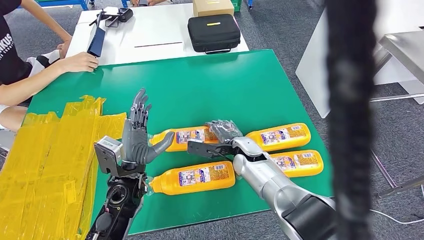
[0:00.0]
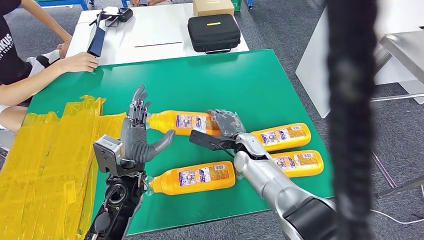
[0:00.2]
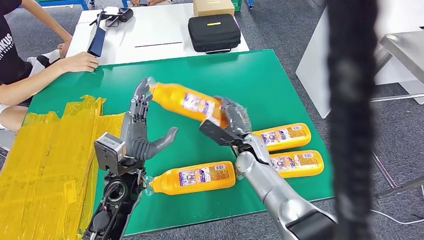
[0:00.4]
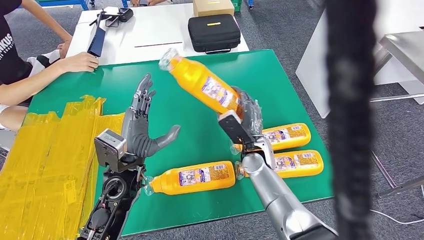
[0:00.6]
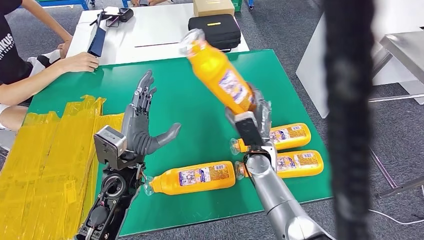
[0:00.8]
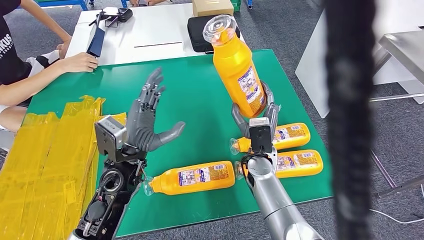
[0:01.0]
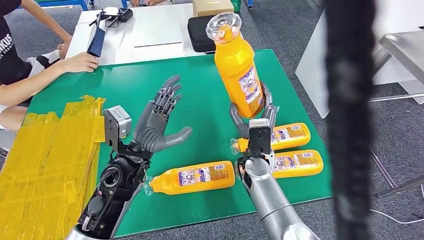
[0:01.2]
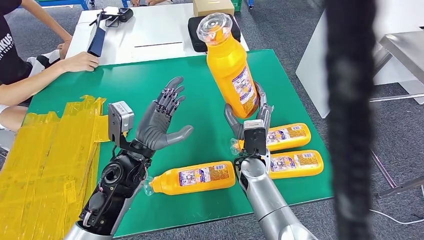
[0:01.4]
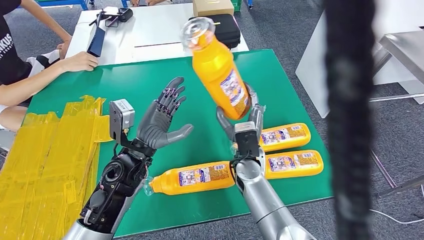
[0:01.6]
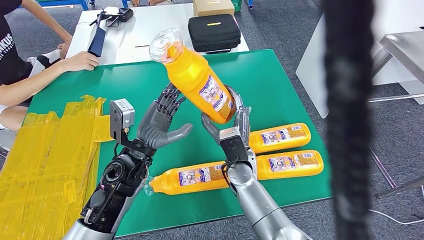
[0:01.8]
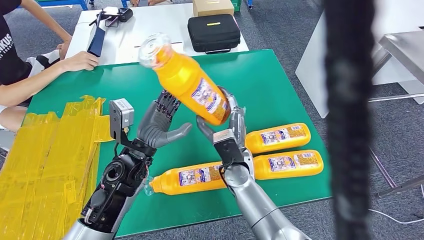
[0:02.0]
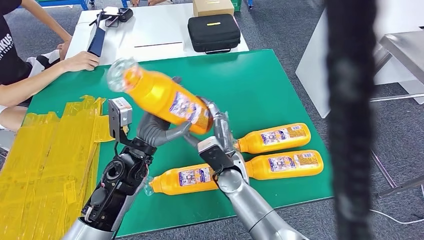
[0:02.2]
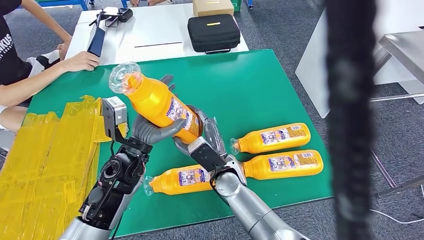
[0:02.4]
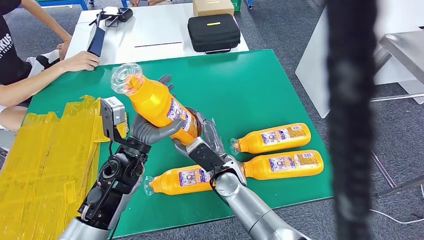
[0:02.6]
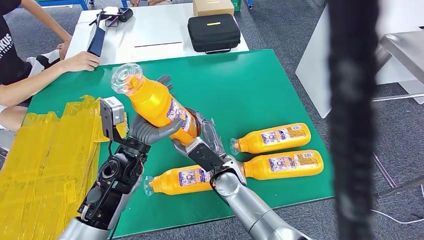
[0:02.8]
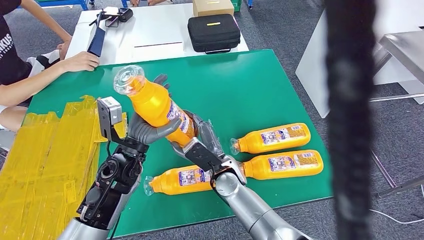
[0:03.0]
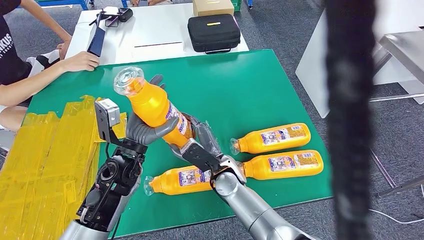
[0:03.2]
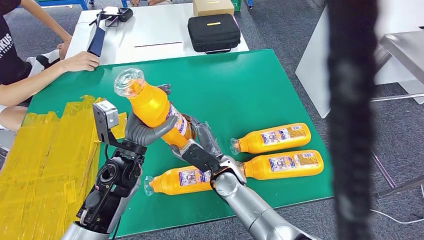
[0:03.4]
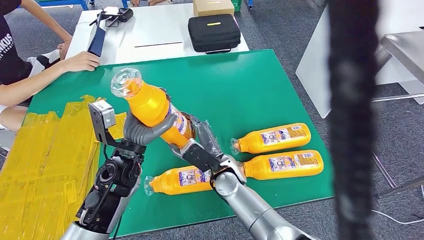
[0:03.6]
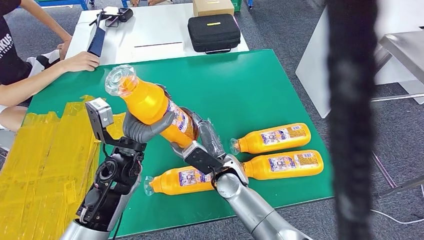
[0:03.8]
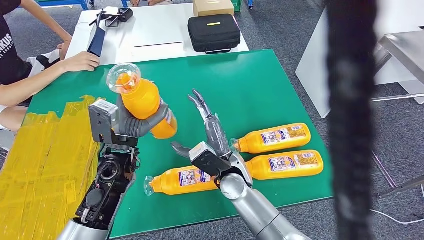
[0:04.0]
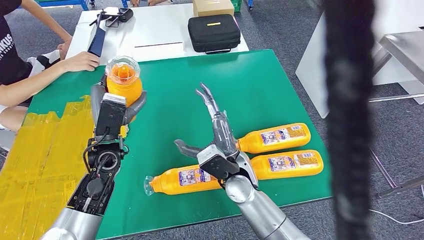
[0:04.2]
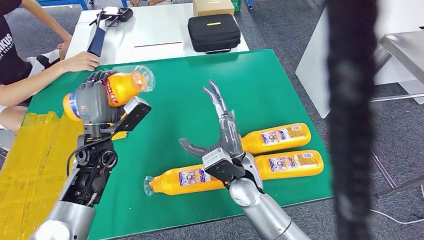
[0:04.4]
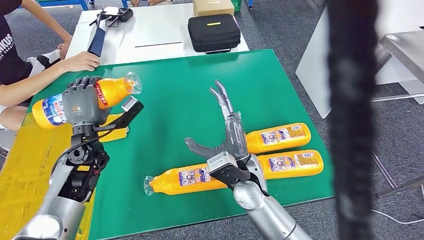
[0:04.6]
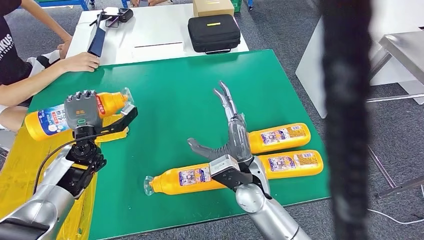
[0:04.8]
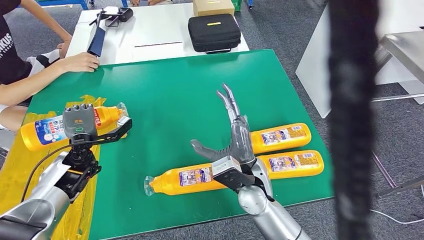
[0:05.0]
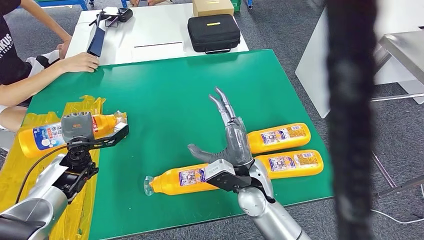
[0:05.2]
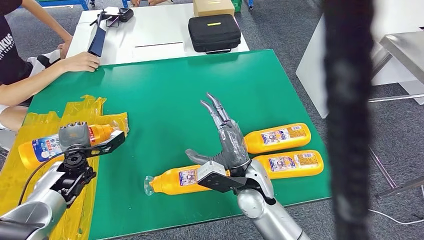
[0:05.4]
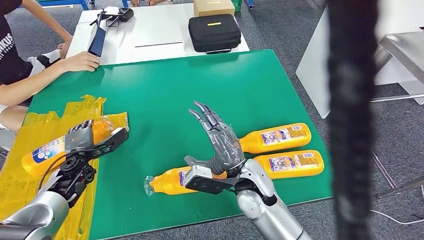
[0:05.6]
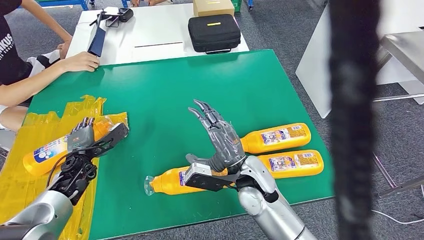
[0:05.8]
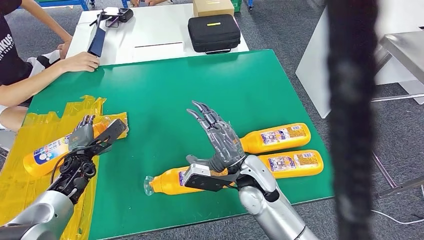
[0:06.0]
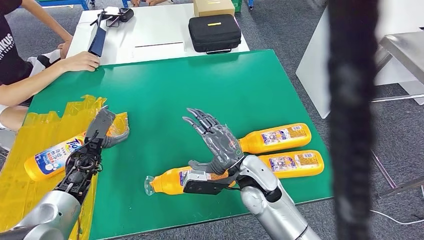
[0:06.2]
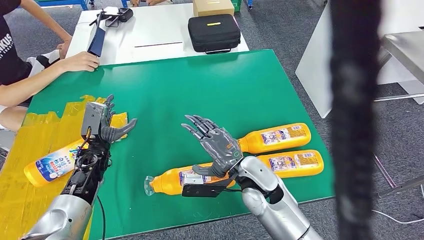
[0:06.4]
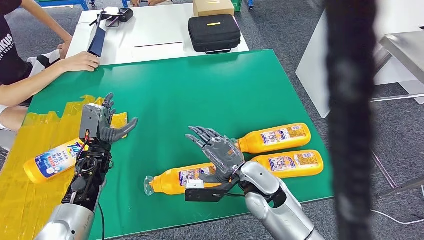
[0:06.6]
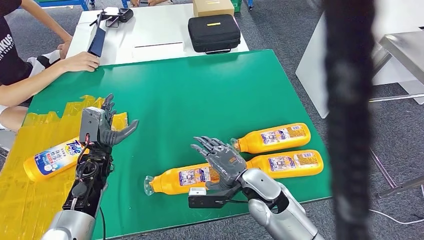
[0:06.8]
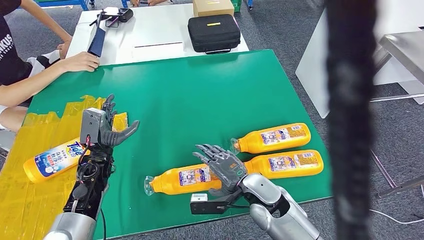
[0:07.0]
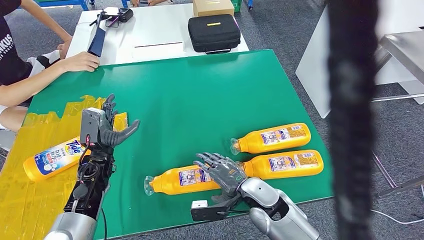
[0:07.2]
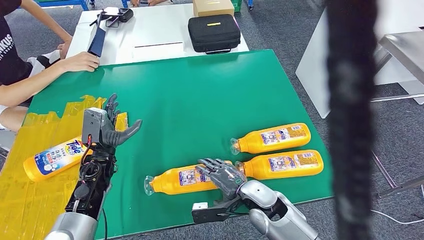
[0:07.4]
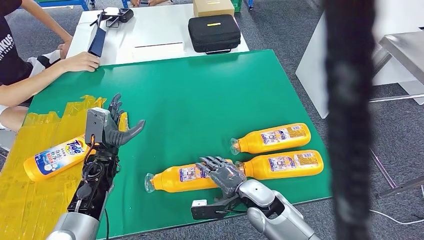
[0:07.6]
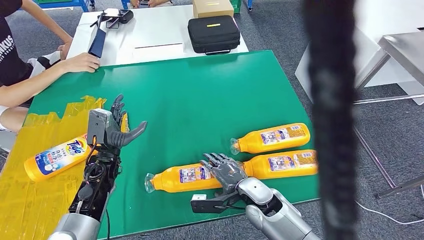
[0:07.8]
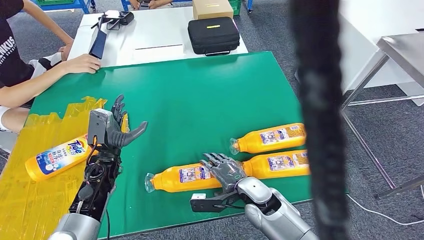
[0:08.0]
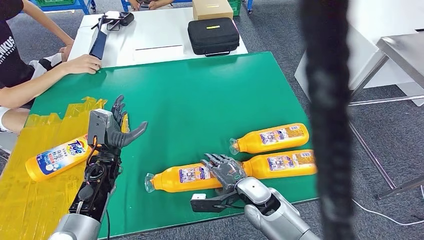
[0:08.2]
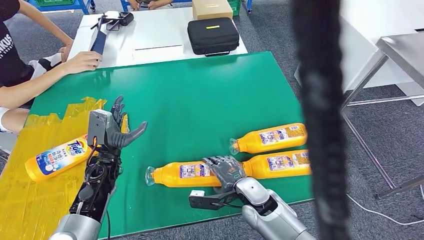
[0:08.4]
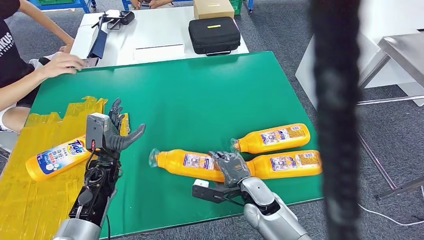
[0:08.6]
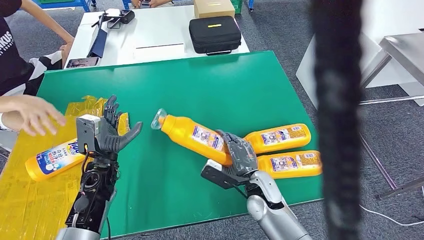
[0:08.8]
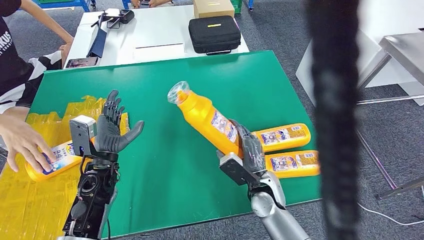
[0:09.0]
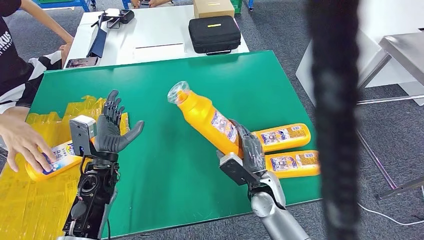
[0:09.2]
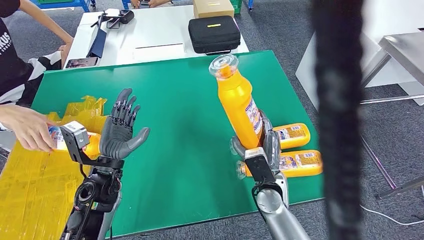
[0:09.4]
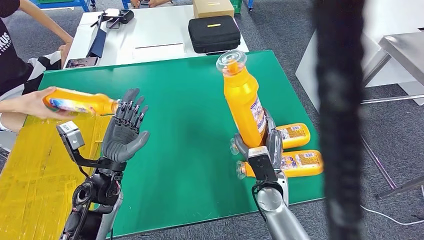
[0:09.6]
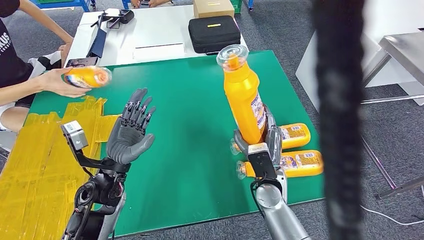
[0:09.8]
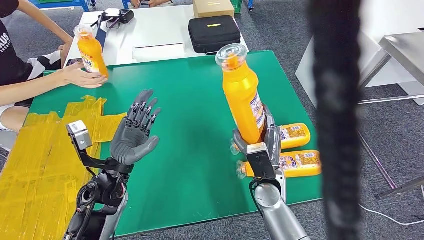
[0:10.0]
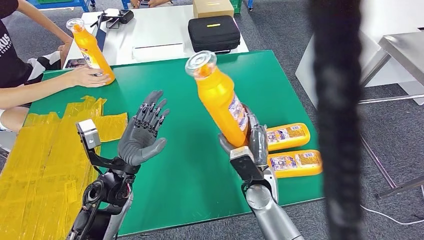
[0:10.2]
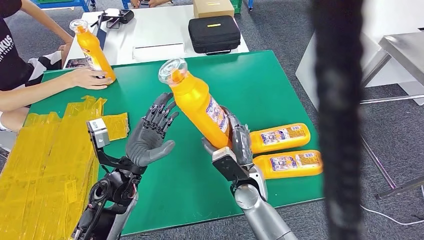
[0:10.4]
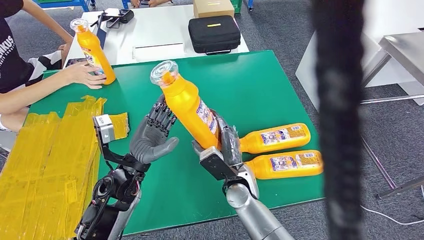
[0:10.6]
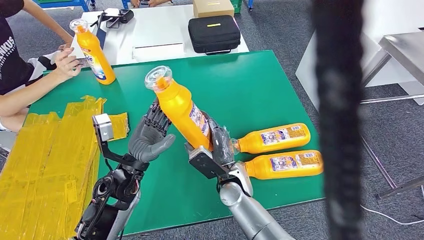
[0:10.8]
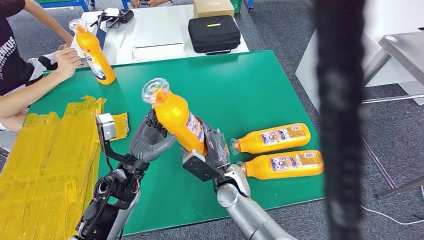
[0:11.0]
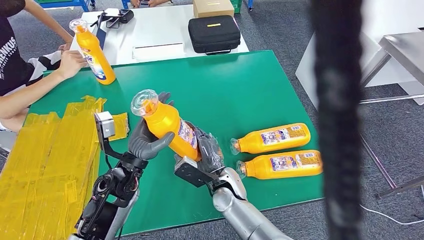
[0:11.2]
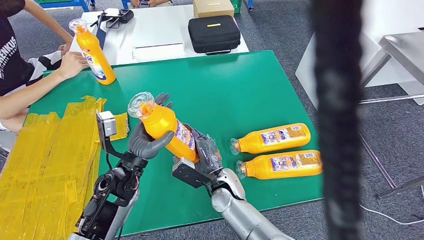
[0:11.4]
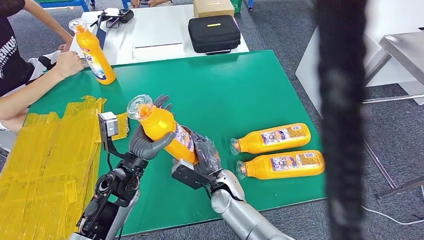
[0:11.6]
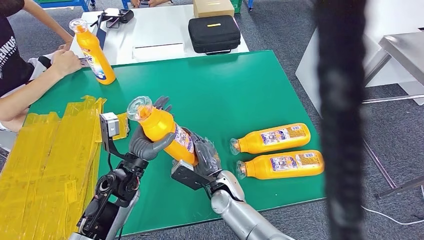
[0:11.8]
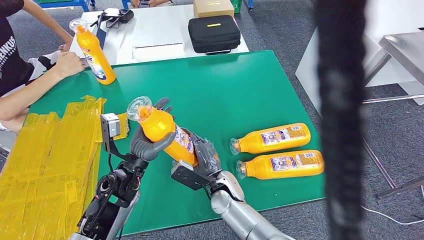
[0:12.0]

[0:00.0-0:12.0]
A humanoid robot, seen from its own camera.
Step, 1.4 to 6.0 s: Flip the bottle to face forward.
Step, 6.2 to 10.6 s: Pick up the bottle from the table.
0.0 to 1.6 s: The right hand shifts approximately 5 cm backward. The left hand moves approximately 5 cm.
1.6 to 3.0 s: The right hand travels to the left by some 5 cm.
3.0 to 4.4 s: The left hand travels to the left by roughly 10 cm. Meanwhile the right hand moves upward, roughly 5 cm.
4.4 to 6.0 s: The left hand shifts roughly 15 cm to the left and downward.
6.0 to 7.6 s: The left hand moves to the right, approximately 10 cm; the right hand shifts roughly 10 cm downward.
10.4 to 12.0 s: The right hand travels to the left by roughly 5 cm.

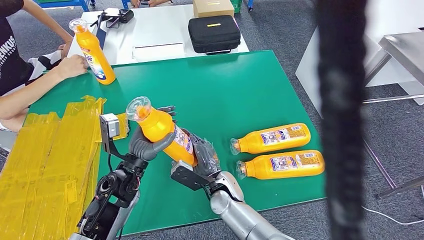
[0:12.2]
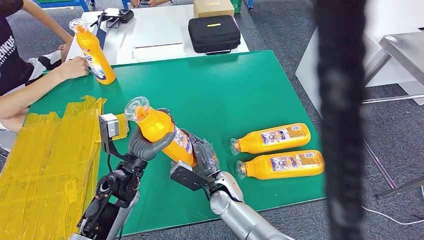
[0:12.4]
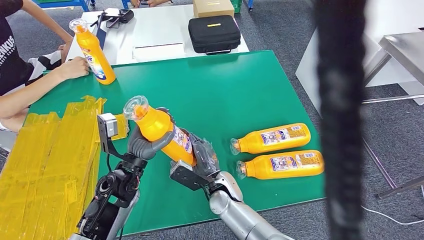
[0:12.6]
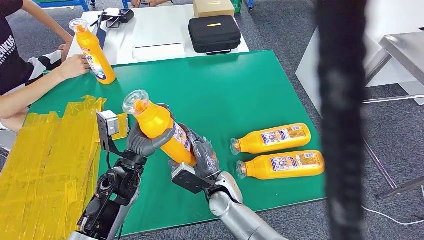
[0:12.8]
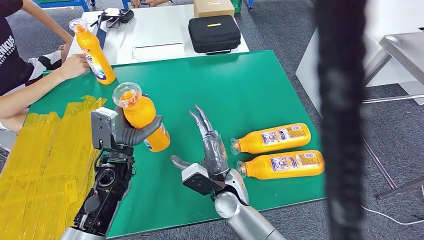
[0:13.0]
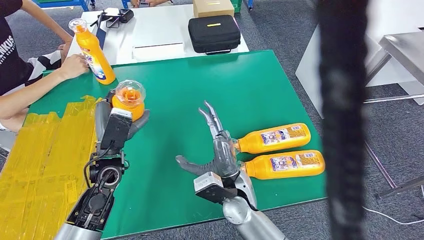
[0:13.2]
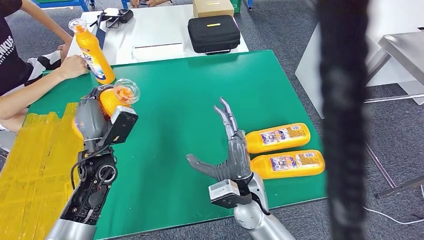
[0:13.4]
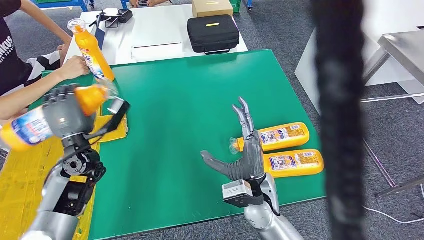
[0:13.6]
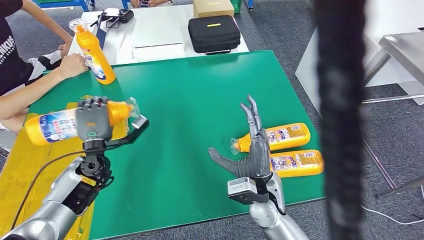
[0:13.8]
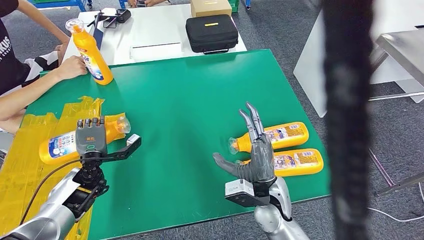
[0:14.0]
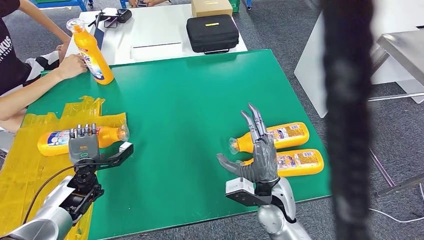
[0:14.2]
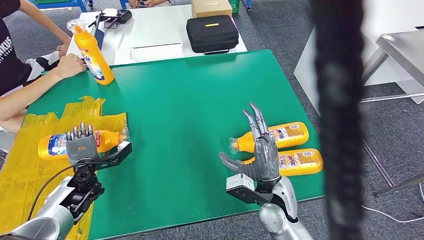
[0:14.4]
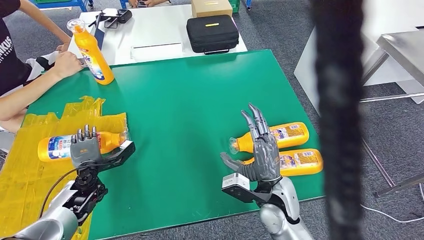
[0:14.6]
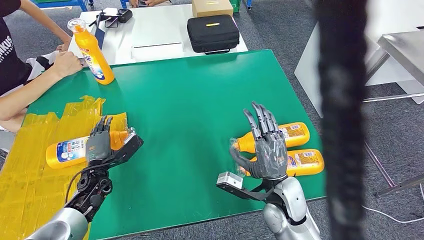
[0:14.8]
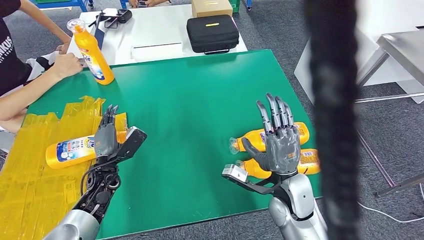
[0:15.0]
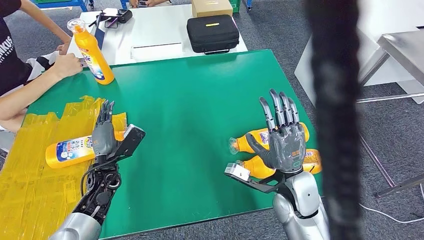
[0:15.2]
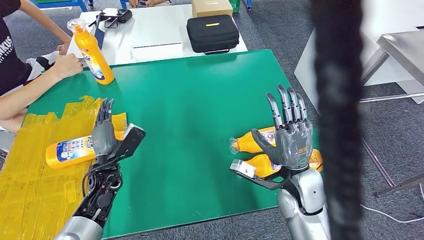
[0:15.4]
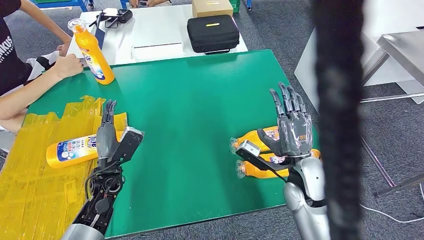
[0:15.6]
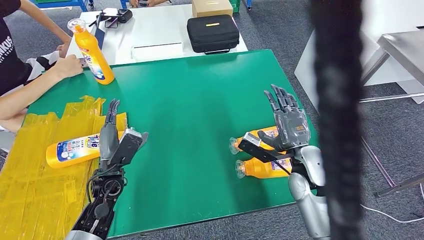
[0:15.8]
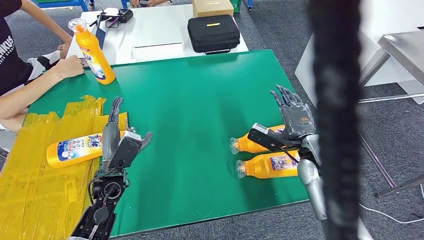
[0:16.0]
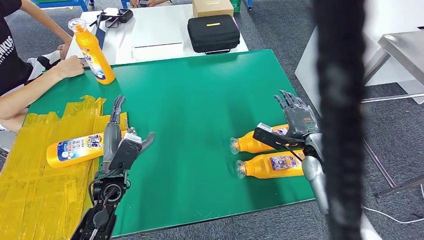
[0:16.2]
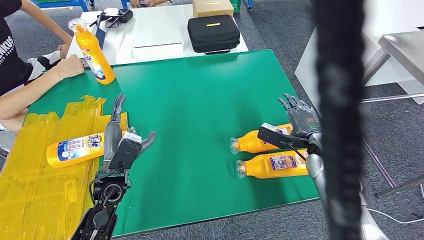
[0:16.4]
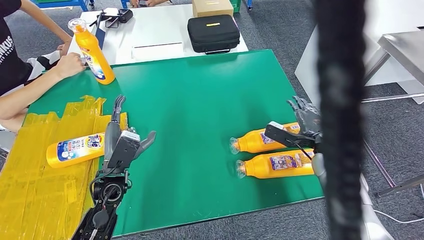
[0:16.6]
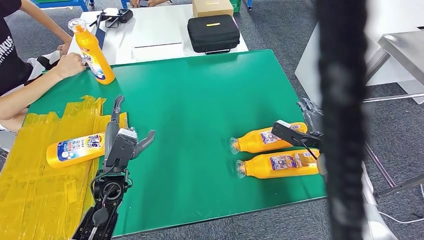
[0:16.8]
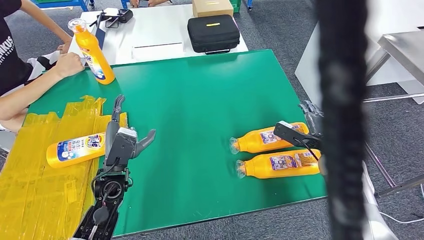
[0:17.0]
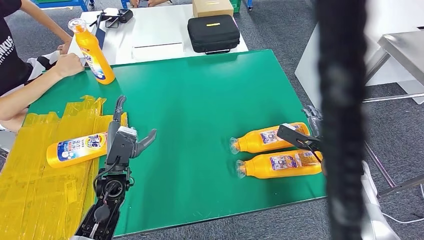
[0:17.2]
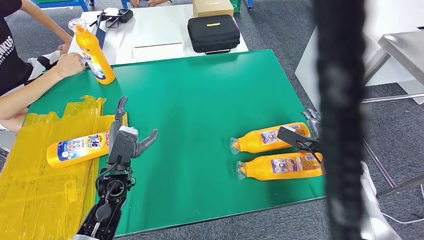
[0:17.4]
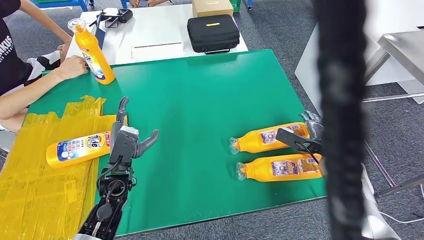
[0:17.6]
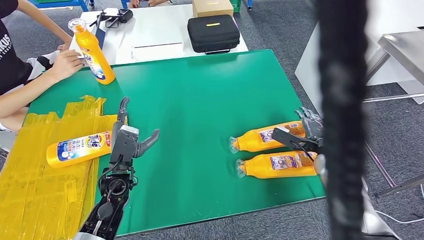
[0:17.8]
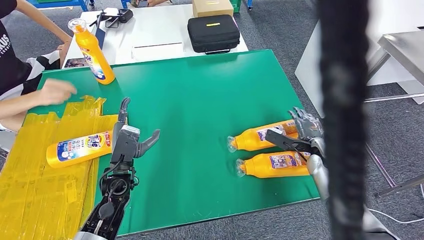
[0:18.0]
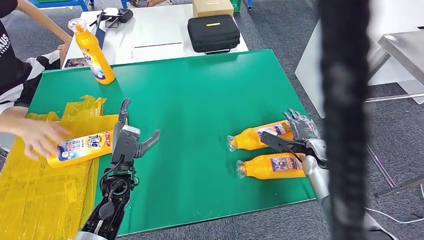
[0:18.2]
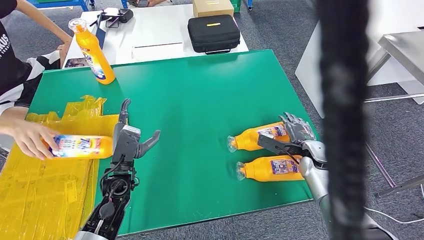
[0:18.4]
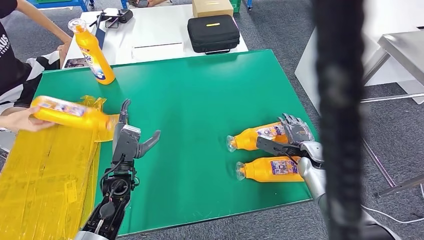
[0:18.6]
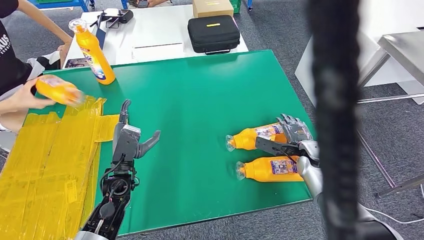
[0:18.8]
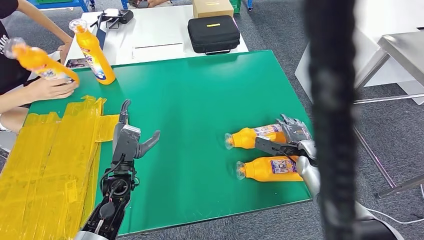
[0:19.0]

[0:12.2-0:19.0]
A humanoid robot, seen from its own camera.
Step, 12.2 to 15.0 s: Flip the bottle to face forward.
16.2 to 17.6 s: The right hand moves to the right, some 10 cm.
17.6 to 19.0 s: The right hand shifts by approximately 5 cm.
